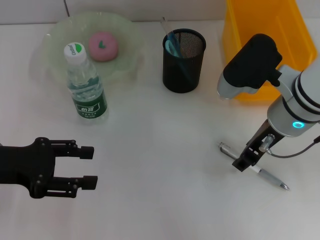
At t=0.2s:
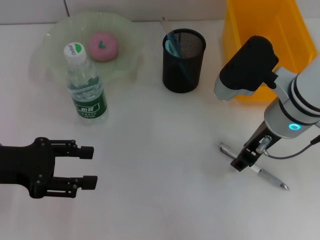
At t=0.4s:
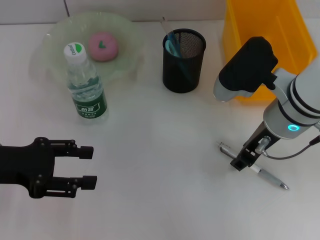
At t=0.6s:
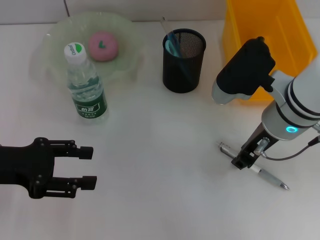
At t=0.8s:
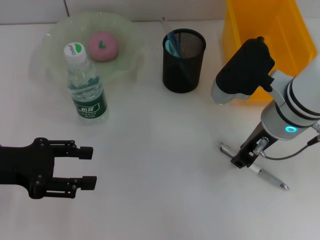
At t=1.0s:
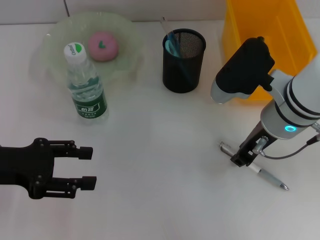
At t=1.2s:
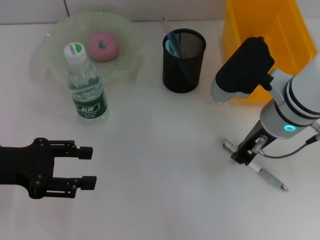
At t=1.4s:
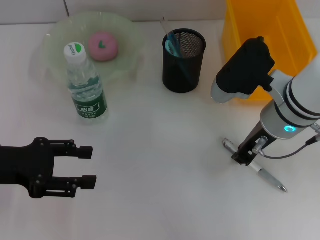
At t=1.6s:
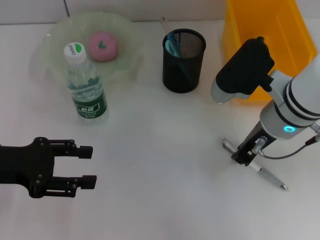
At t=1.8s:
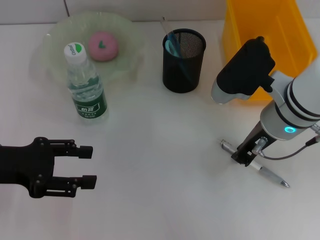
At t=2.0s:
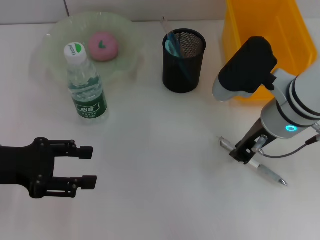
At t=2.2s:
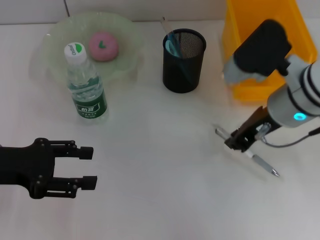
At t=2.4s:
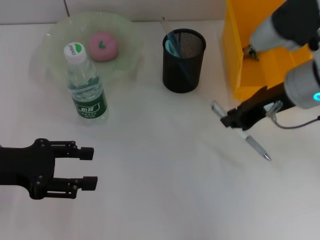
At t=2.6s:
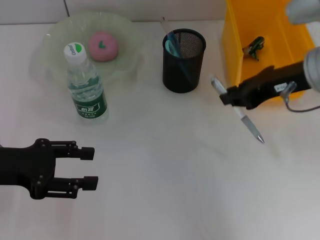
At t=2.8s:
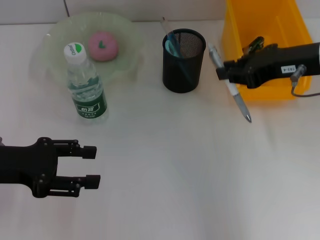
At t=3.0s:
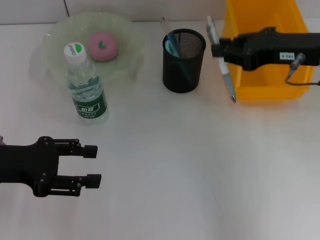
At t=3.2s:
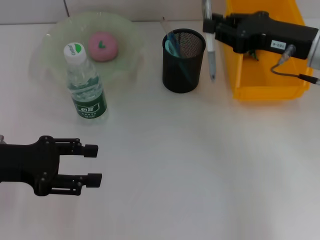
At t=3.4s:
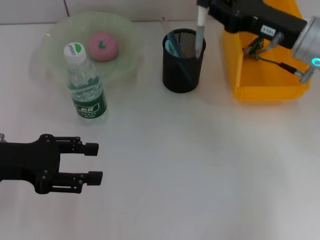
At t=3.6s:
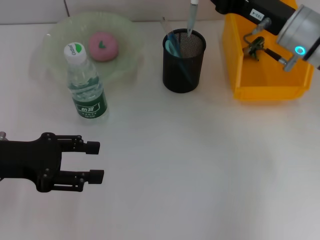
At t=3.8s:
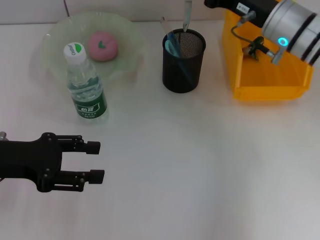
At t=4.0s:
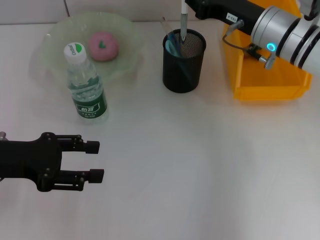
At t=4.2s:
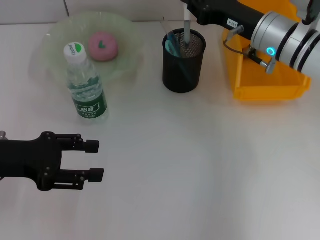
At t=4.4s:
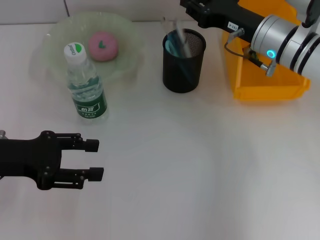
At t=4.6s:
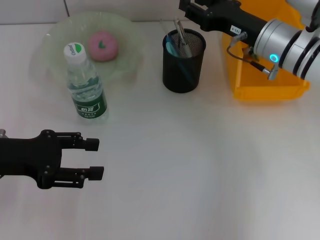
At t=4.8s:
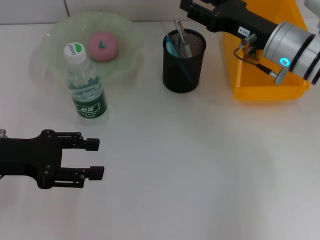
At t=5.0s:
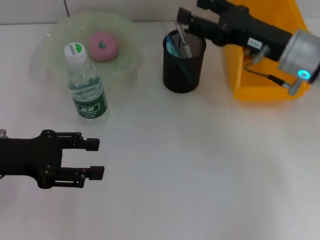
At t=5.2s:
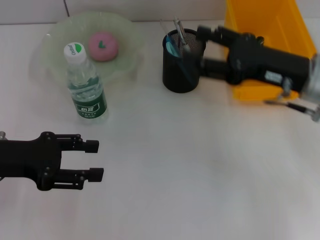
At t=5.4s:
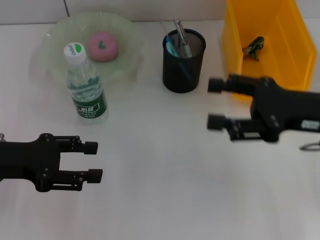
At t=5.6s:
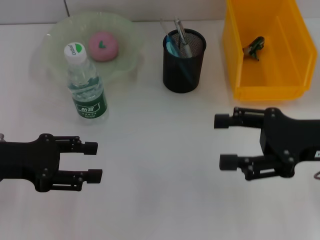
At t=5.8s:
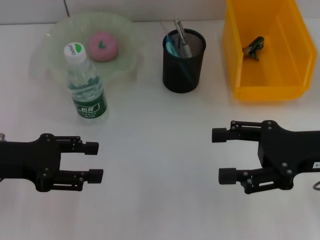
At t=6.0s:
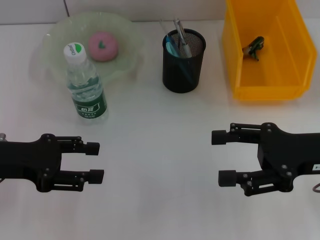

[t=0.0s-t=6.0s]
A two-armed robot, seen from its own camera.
Step, t=1.8s to t=5.2s: Place the gray spring-action pen into the pen holder with the right hand.
t=0.0s to t=1.6s: The right gripper closes.
t=1.6s to t=3.0s: The right gripper is displaced to the right and upward by some 10 cm.
t=3.0s to t=4.4s: The right gripper shifts some 10 cm downward, forward and to the left.
t=4.4s to t=6.0s: The right gripper travels backward and to the right by some 15 cm, and opens its fingers.
